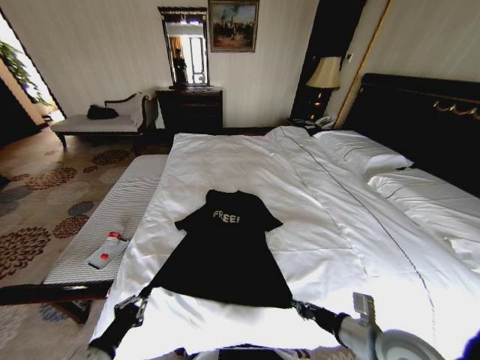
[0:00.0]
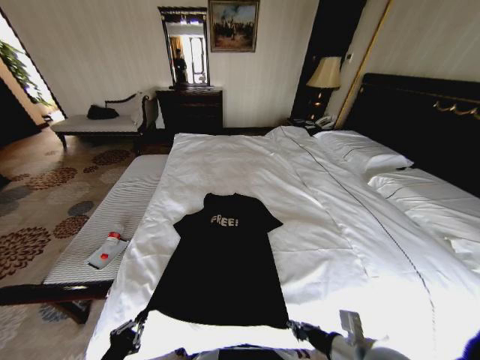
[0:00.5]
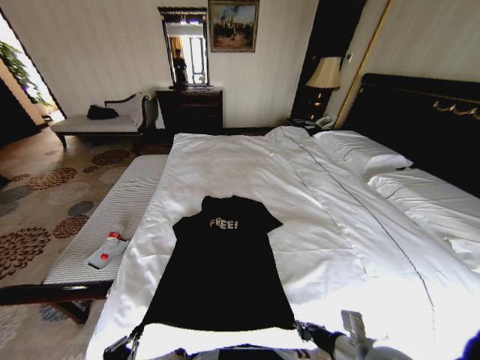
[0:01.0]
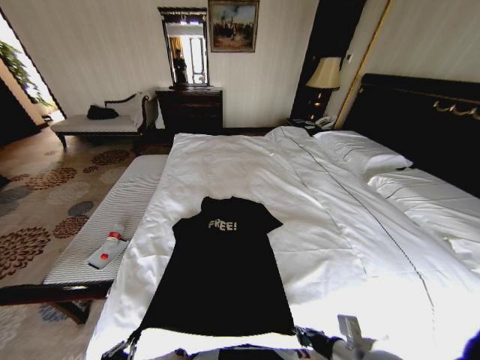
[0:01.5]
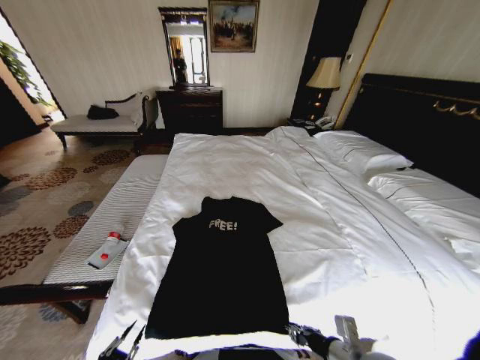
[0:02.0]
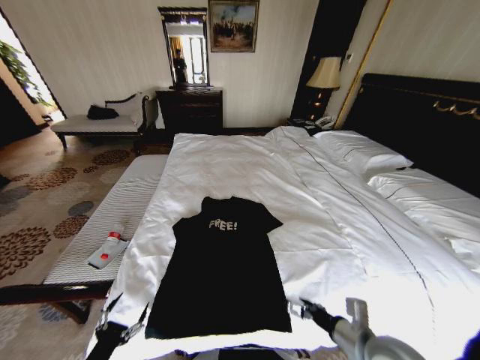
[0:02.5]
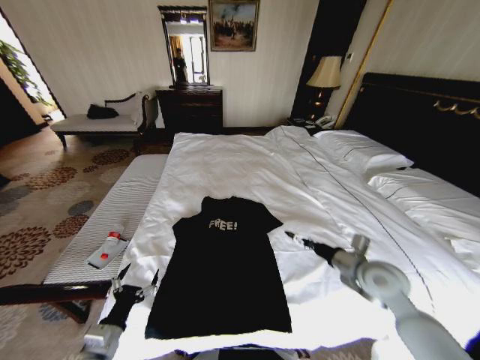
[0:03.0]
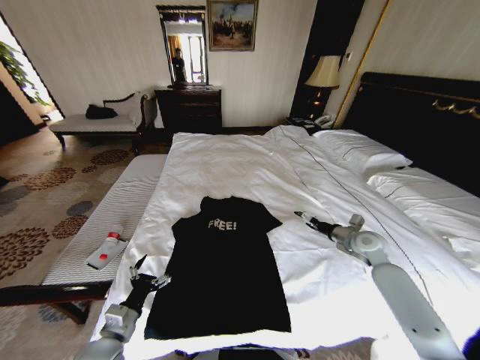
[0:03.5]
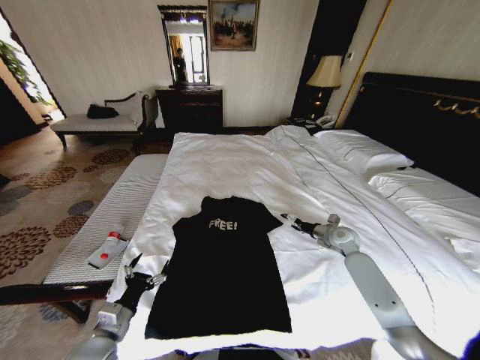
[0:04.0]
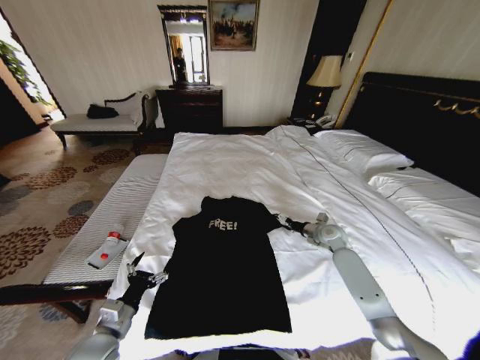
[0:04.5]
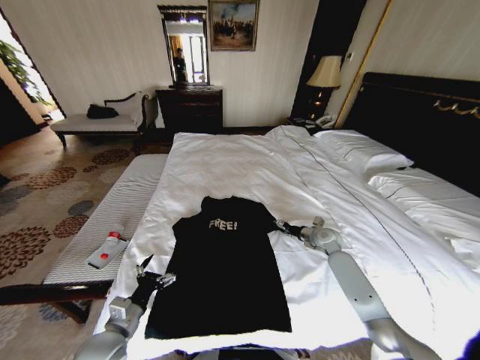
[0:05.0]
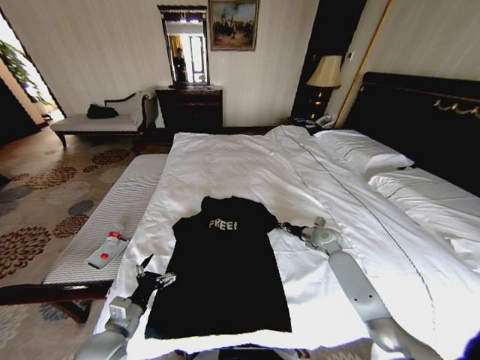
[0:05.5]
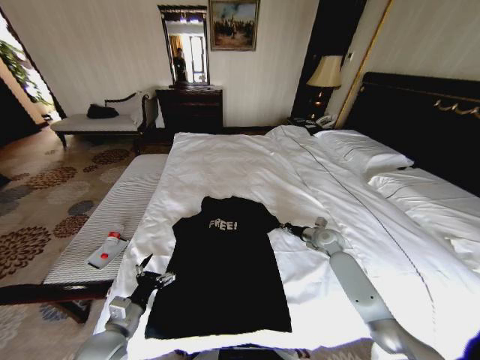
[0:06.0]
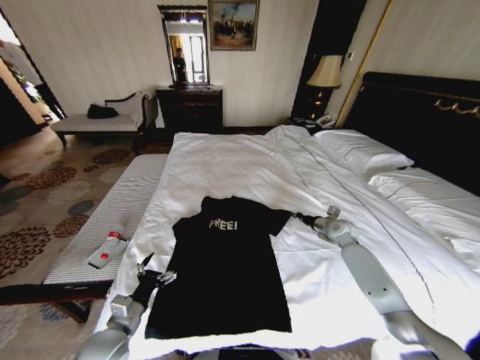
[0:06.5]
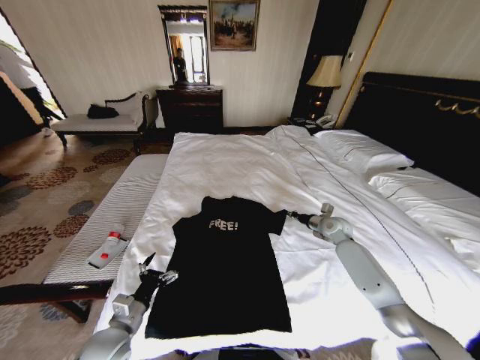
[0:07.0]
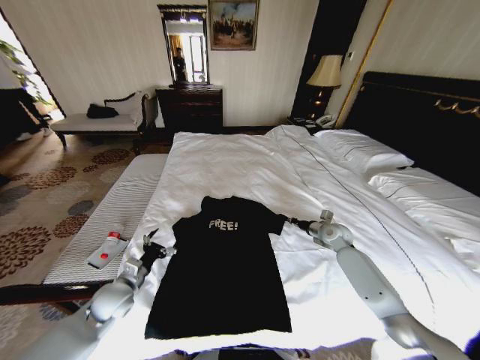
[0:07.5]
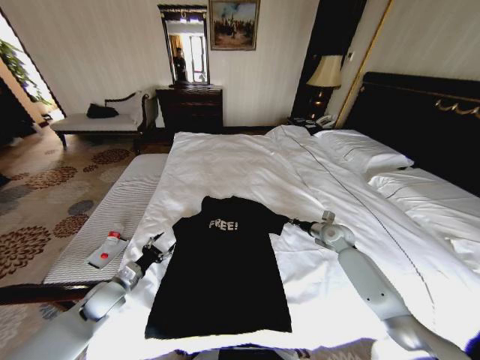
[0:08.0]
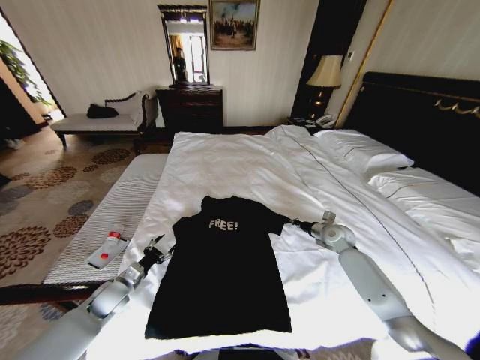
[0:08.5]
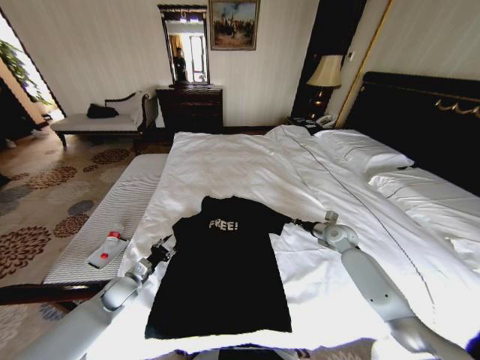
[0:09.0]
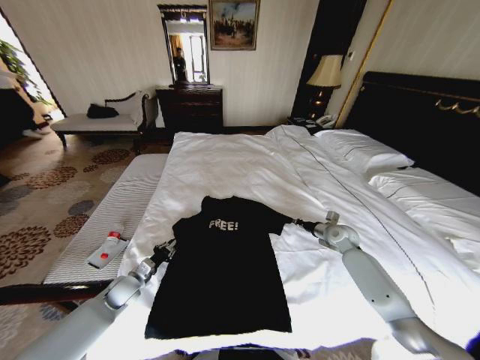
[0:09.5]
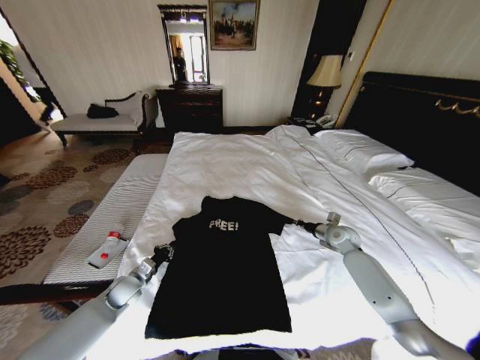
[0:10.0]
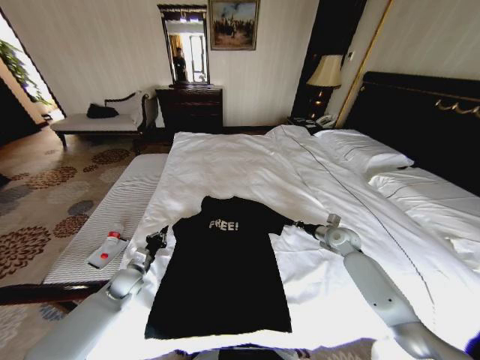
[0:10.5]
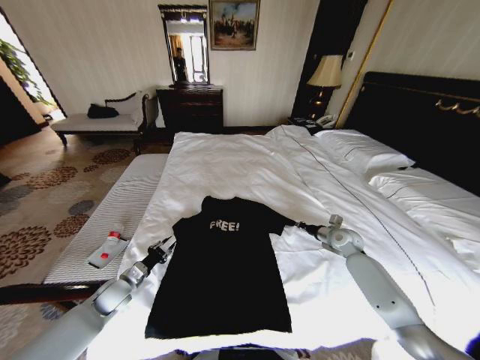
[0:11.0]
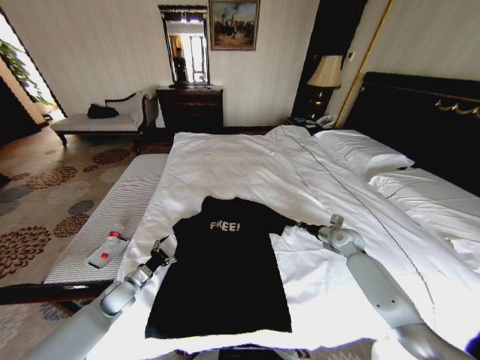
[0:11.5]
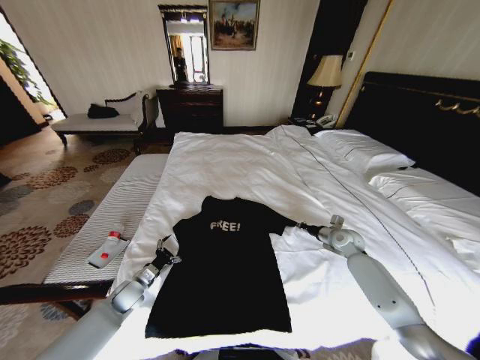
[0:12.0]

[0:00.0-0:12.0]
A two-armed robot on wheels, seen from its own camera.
Task of the whole recording: Fold the clothes on the bed.
0:00.0 to 0:02.0: The right gripper moves some 5 cm. Meanwhile the left gripper goes about 10 cm backward.
0:02.0 to 0:04.0: The left gripper heads forward, covering approximately 15 cm, and opens up, while the right gripper travels forward by some 35 cm, and opens.
0:04.0 to 0:06.0: The right gripper closes up.
0:06.0 to 0:08.0: The left gripper goes about 15 cm forward and to the left.
0:08.0 to 0:10.0: The left gripper is displaced downward by about 5 cm, and closes its fingers.
0:10.0 to 0:12.0: The left gripper opens its fingers.

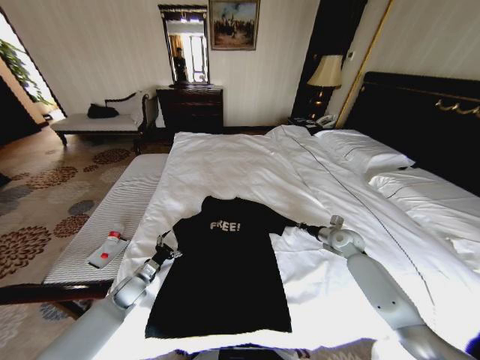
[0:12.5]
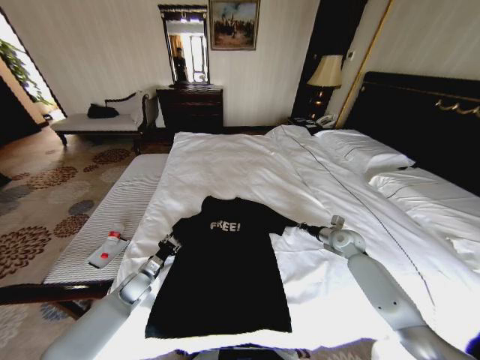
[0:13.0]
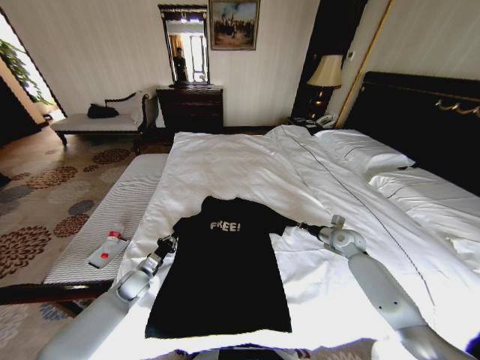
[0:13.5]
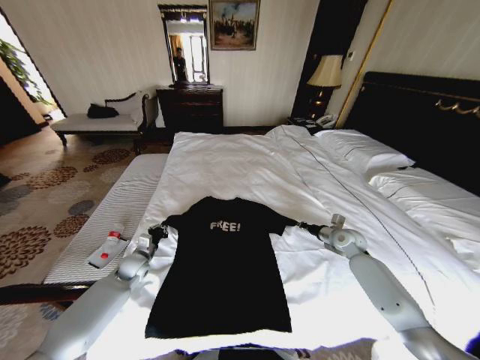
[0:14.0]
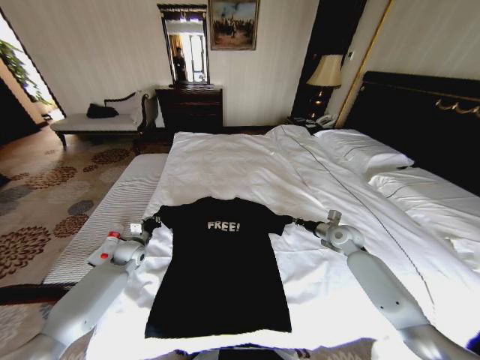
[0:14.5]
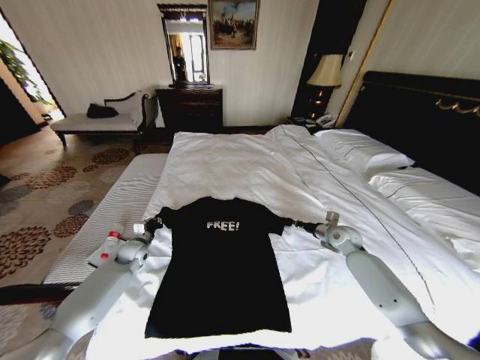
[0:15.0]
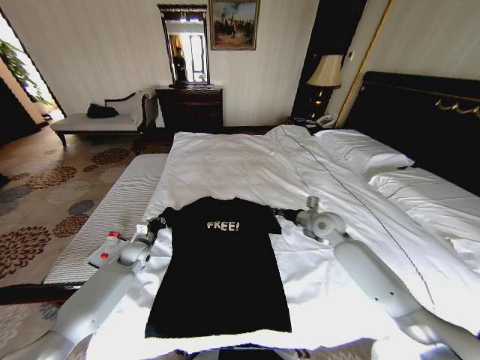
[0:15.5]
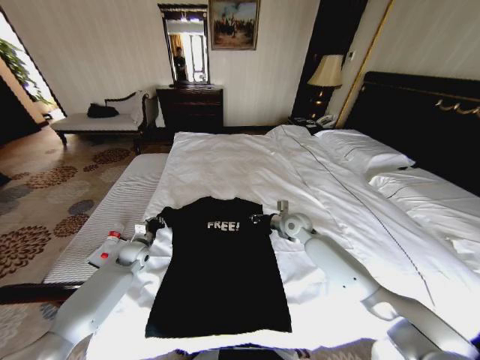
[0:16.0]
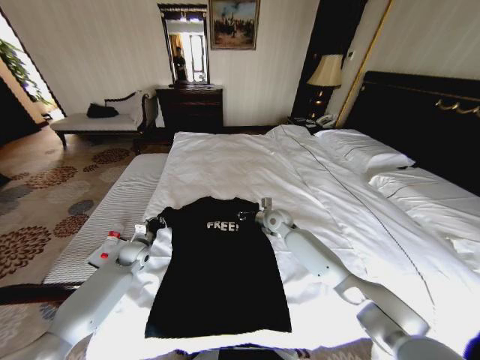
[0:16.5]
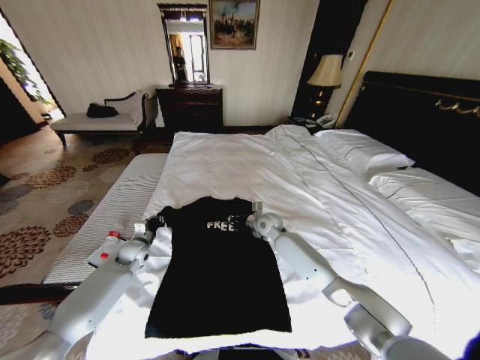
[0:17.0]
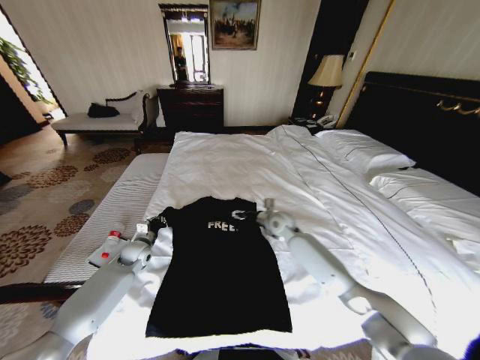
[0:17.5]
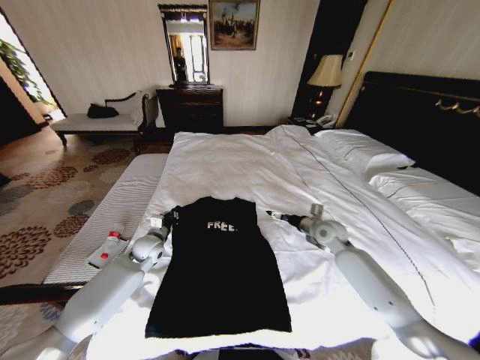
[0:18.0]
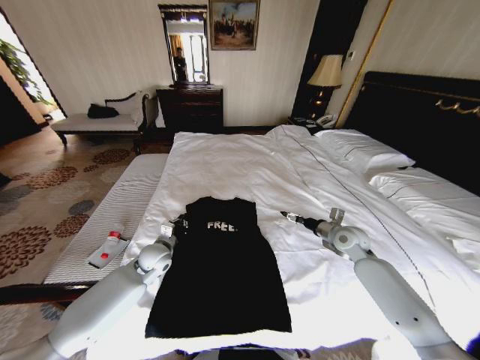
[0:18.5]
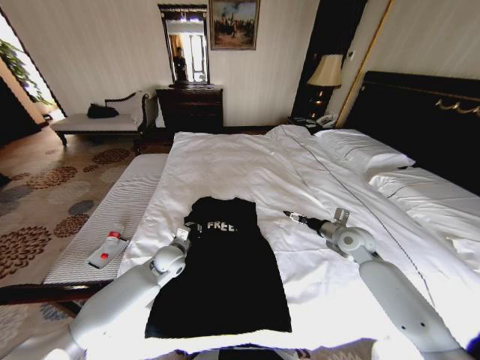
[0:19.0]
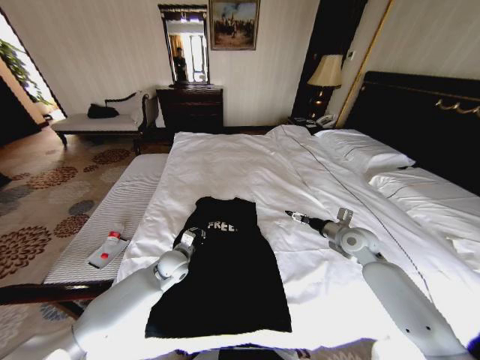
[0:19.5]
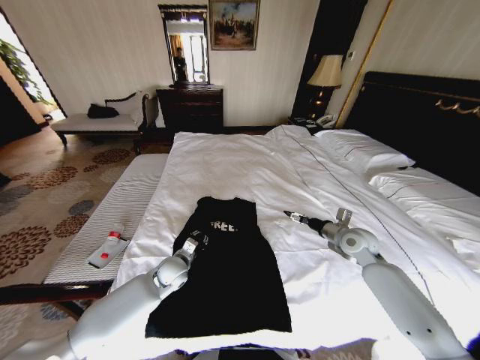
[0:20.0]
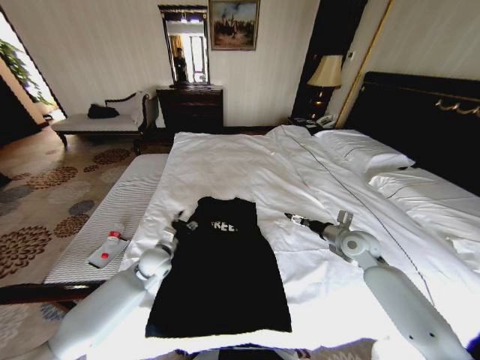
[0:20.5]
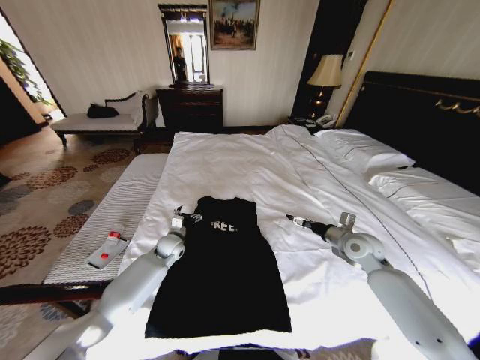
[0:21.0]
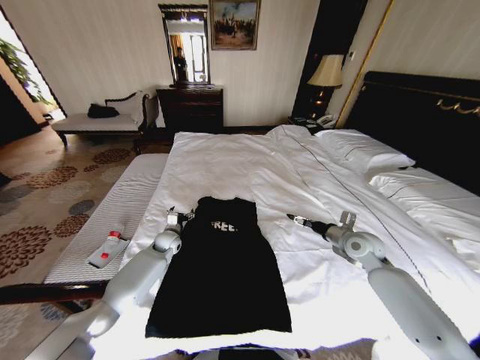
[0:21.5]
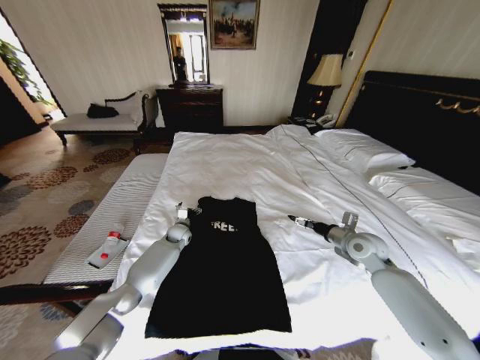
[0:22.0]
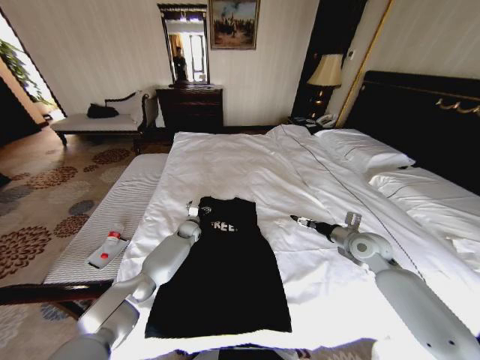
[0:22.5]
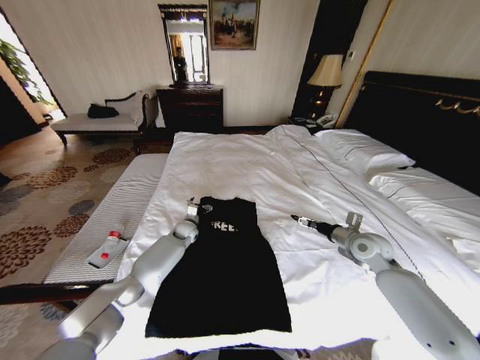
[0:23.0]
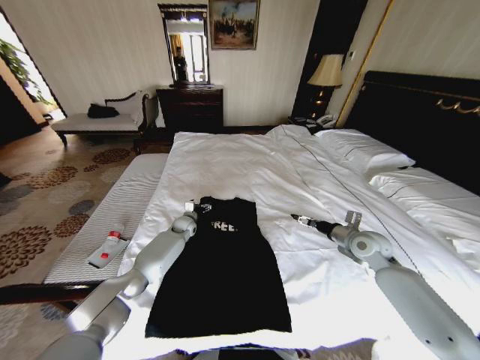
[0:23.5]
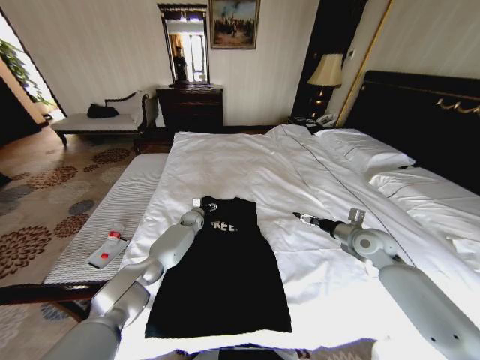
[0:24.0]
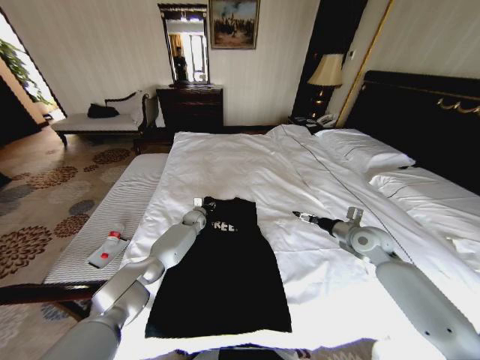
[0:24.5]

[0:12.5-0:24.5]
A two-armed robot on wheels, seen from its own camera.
Task of the whole recording: Fold the clothes on the bed.
0:12.5 to 0:14.5: The left gripper heads forward and upward, covering roughly 10 cm, and closes its fingers.
0:14.5 to 0:16.5: The right gripper moves to the left, some 20 cm.
0:16.5 to 0:18.5: The left gripper goes some 10 cm to the right and upward; the right gripper moves to the right and backward, some 20 cm, and opens its fingers.
0:18.5 to 0:20.5: The left gripper opens its fingers.
0:20.5 to 0:22.5: The left gripper is displaced forward, to the right and downward by roughly 20 cm.
0:22.5 to 0:24.5: The left gripper shifts by approximately 5 cm, and closes.

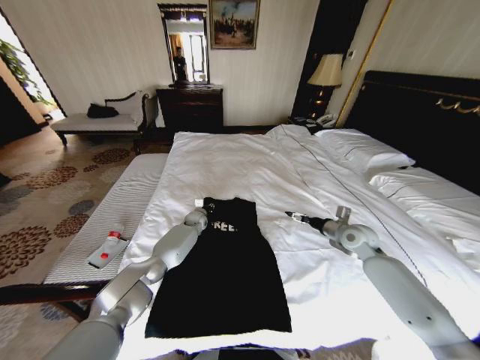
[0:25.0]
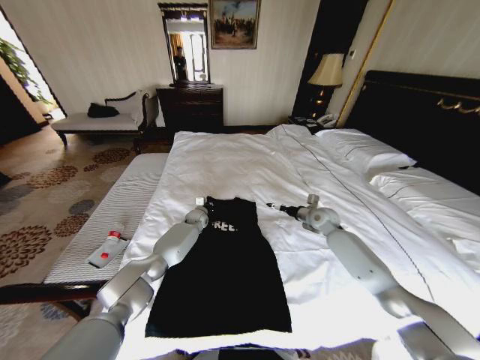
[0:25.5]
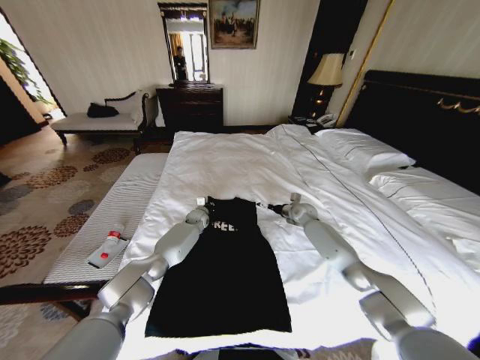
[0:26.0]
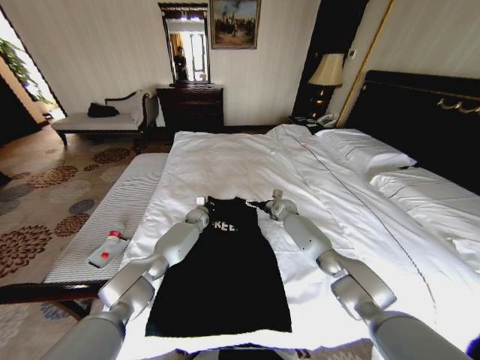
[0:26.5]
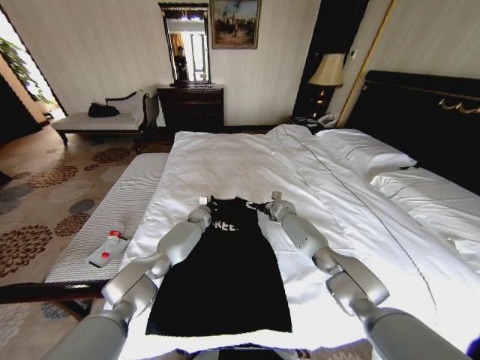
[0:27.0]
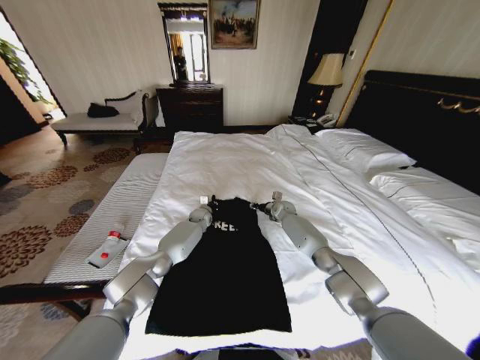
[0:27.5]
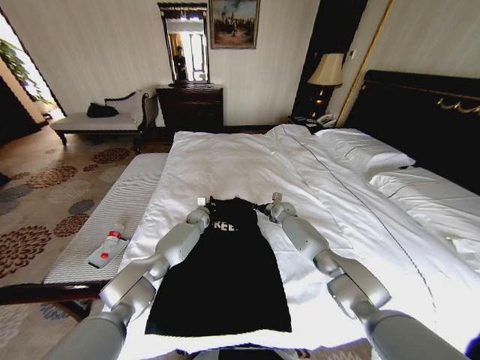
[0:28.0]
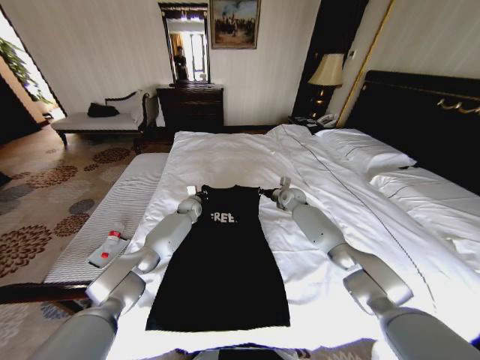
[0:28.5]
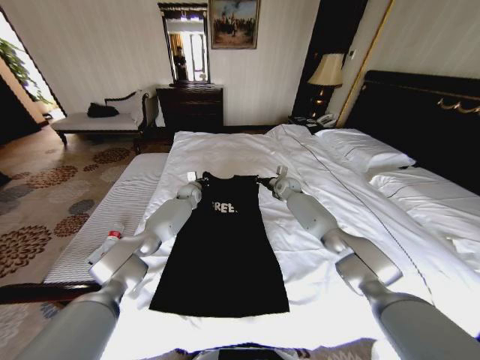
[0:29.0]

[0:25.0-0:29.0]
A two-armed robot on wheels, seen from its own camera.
Task of the whole recording: Fold the clothes on the bed.
0:25.0 to 0:27.0: The left gripper closes up. The right gripper heads forward, to the left and downward, covering approximately 25 cm.
0:27.0 to 0:29.0: Both grippers move upward, roughly 10 cm. The right gripper closes.
